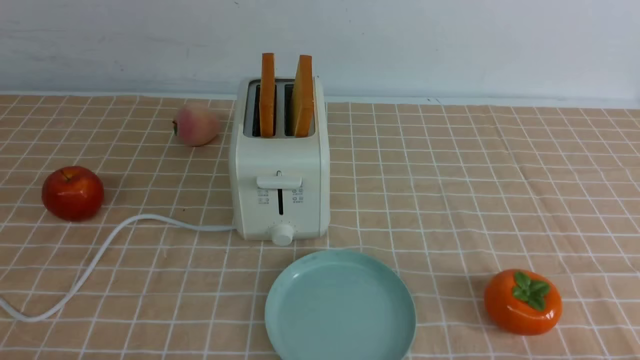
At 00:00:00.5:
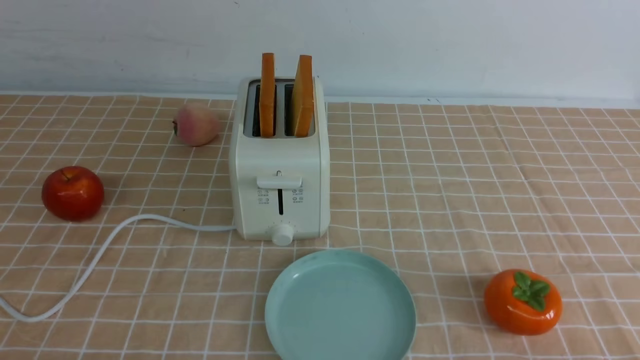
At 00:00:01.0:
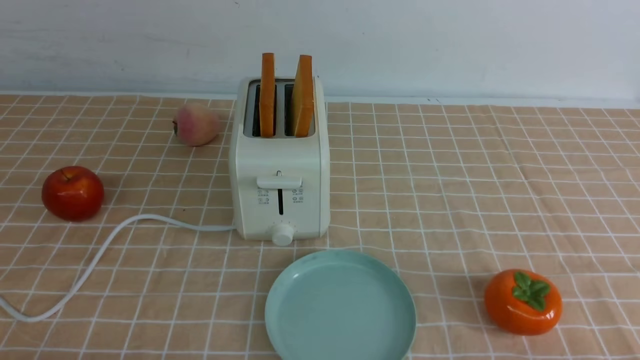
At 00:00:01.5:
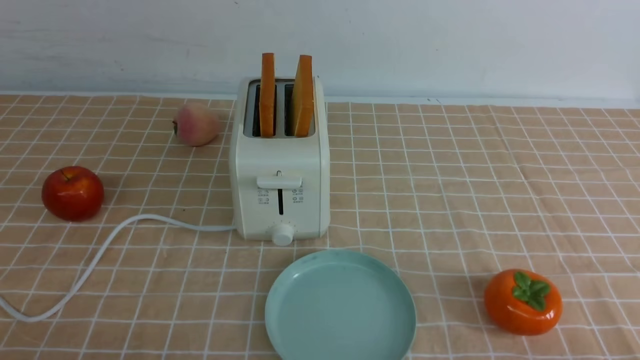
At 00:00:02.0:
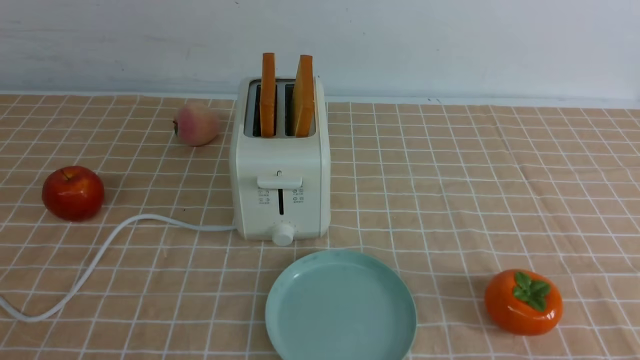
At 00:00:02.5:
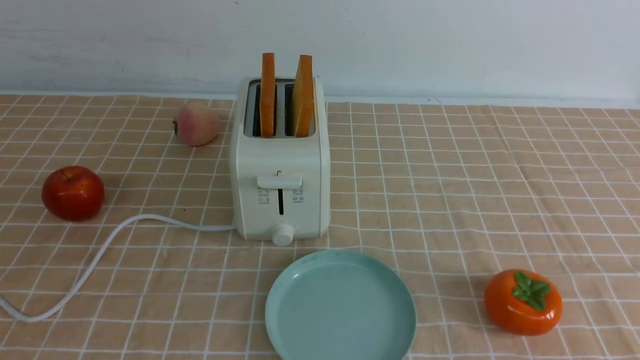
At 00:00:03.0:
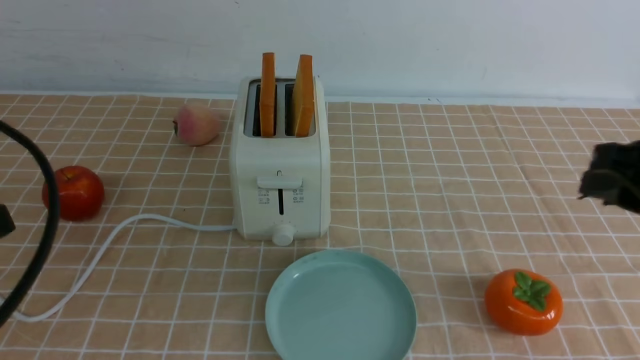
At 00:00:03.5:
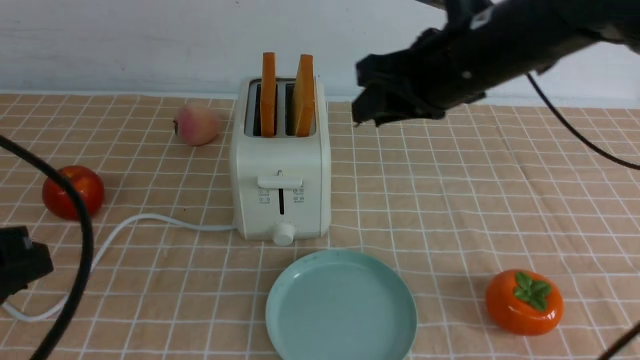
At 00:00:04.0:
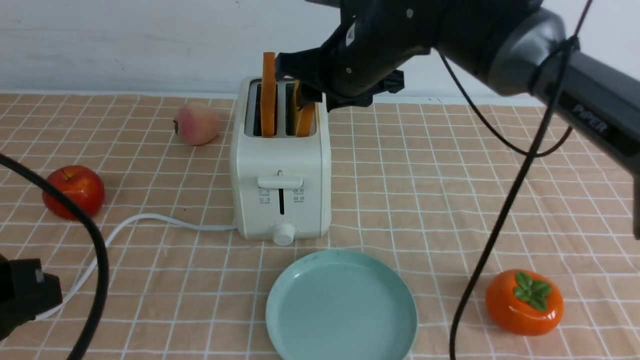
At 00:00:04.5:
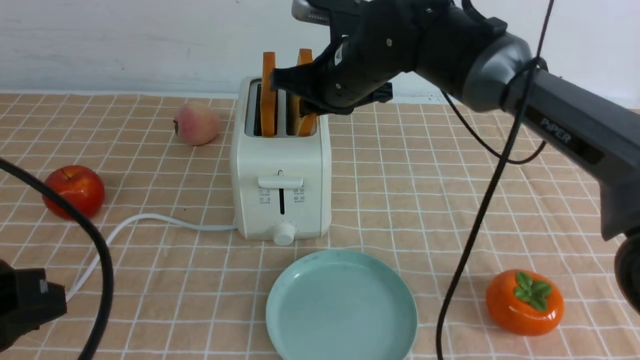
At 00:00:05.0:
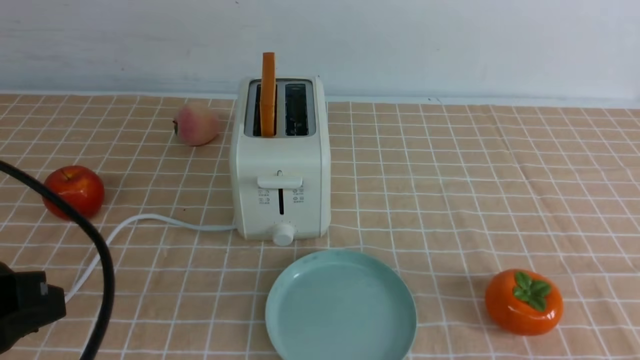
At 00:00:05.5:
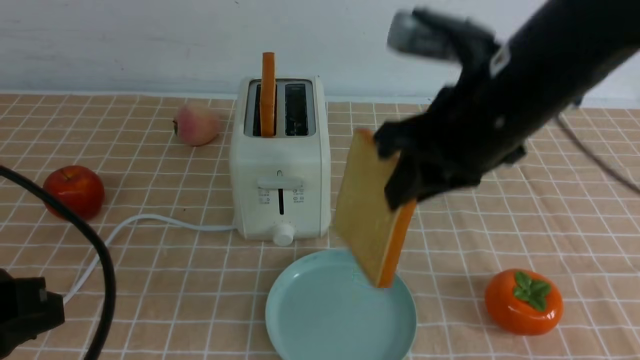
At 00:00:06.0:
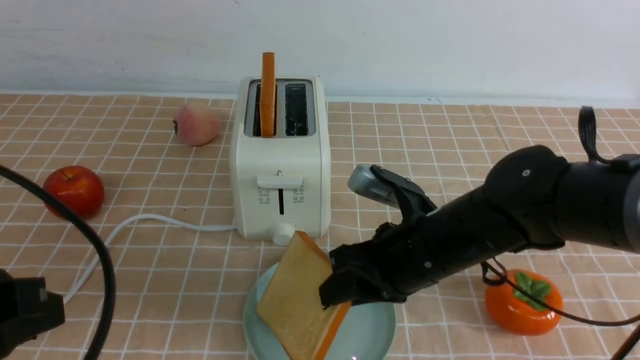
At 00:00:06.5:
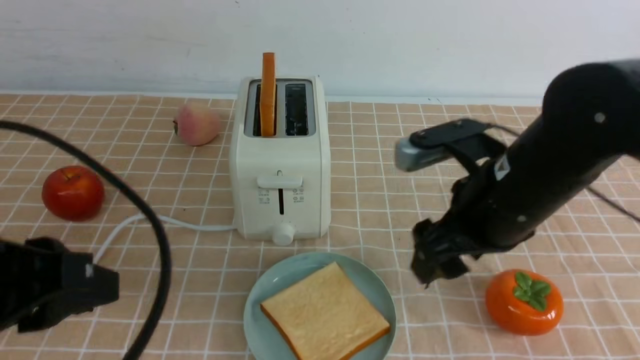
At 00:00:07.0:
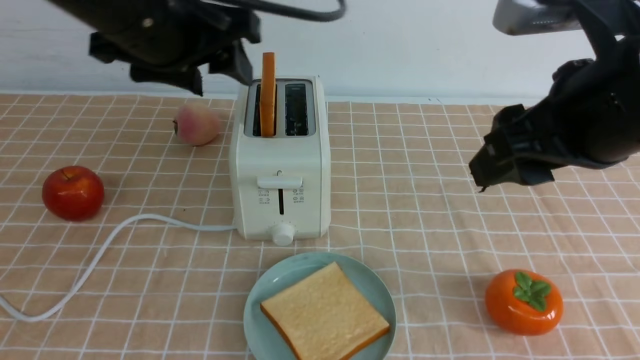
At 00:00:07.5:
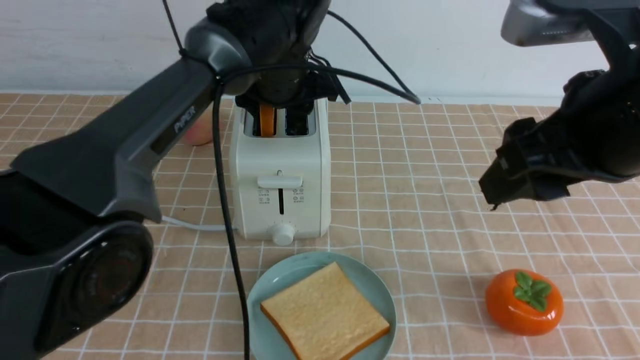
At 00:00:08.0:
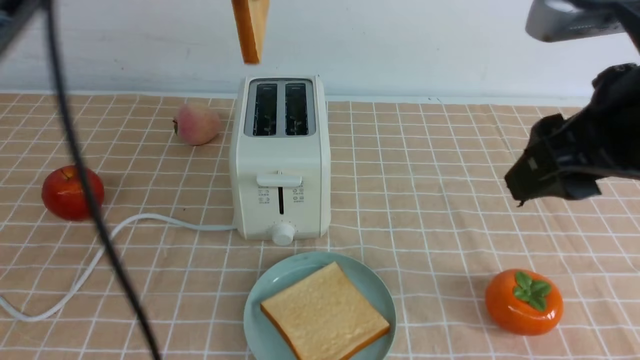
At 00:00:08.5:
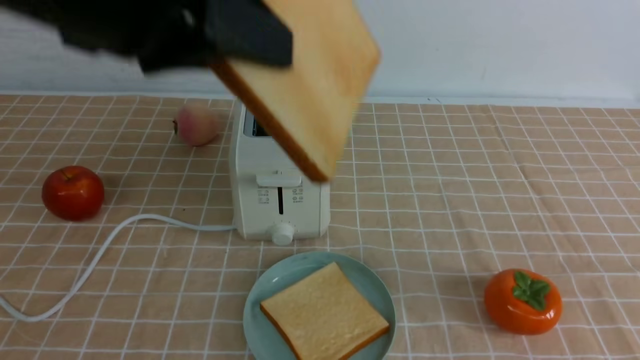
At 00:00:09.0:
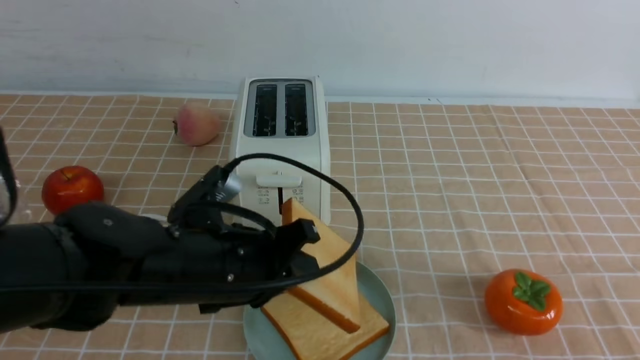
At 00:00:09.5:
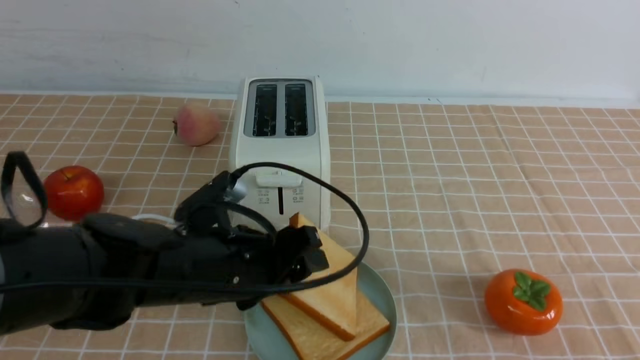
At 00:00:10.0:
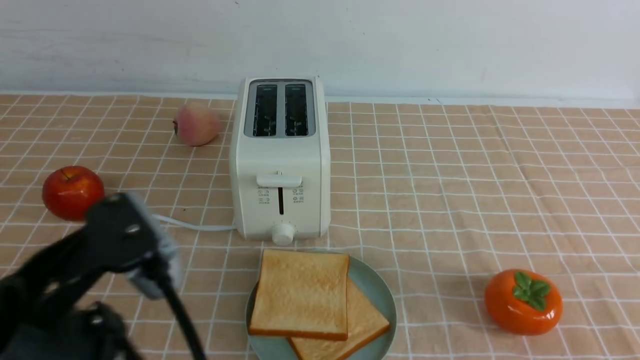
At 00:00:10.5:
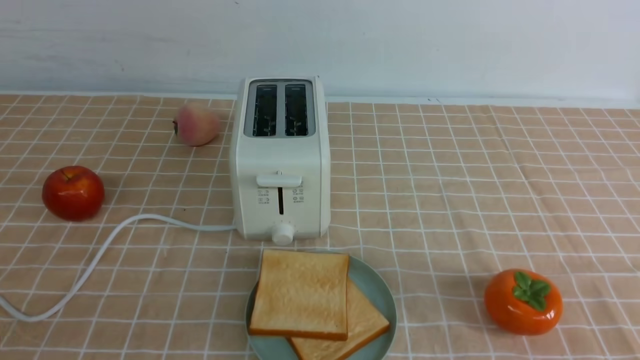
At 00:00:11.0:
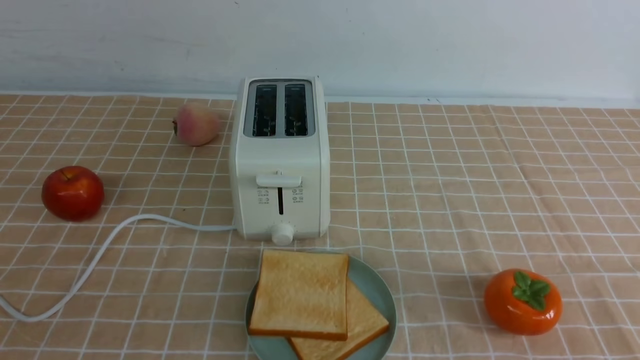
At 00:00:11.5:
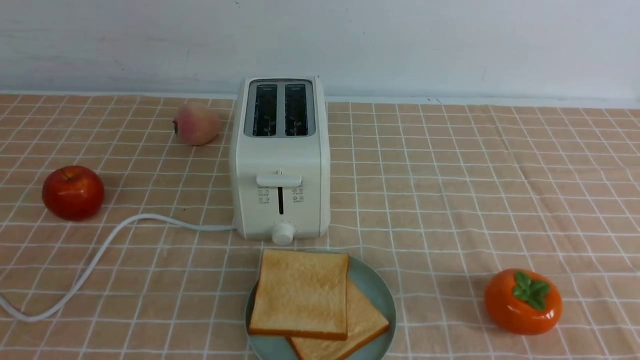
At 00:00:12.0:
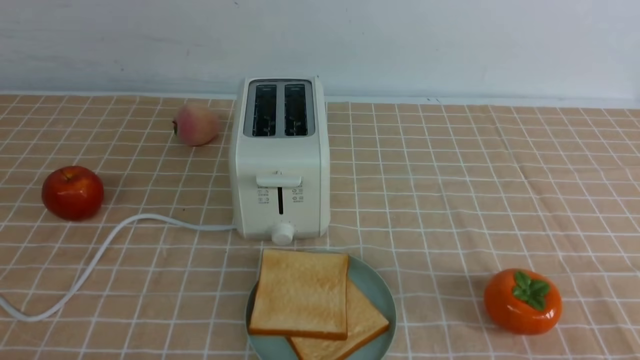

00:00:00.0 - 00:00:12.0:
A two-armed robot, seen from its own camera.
Task of the whole recording: take toasted bread from bread machine on light coffee tablecloth place on plate.
Step, 00:00:00.0 - 00:00:04.5: use the right arm to take out a slice of bread.
Step, 00:00:05.0 - 00:00:06.0: use the right arm to put a slice of bread into the plate.
Step, 00:00:06.5 - 00:00:07.5: use the left arm to take out a slice of bread.
Step, 00:00:08.0 - 00:00:09.5: use the left arm to put a slice of bread into the empty plate.
00:00:02.0 - 00:00:04.0: The right gripper shifts about 50 cm forward and to the left. The left gripper heads forward, covering about 10 cm.
00:00:04.0 - 00:00:06.0: The right gripper is displaced backward, downward and to the right by about 20 cm, and closes and opens again.
00:00:06.0 - 00:00:08.0: The left gripper goes about 30 cm forward, upward and to the right, and opens and closes again, while the right gripper heads upward, to the right and backward, covering some 25 cm.
00:00:08.0 - 00:00:10.0: The left gripper moves backward and downward, approximately 30 cm; the right gripper travels downward, backward and to the right by approximately 20 cm, and closes.
00:00:10.0 - 00:00:12.0: The left gripper heads downward, to the left and backward, covering about 20 cm, and closes up.

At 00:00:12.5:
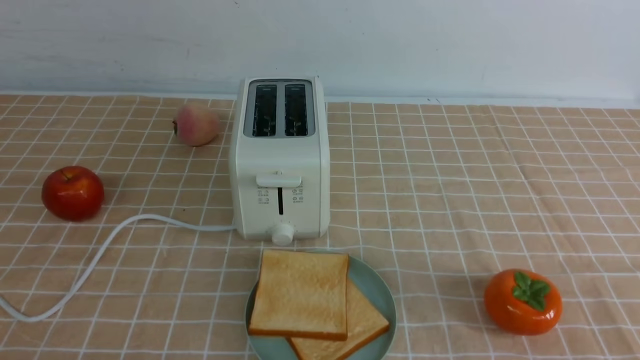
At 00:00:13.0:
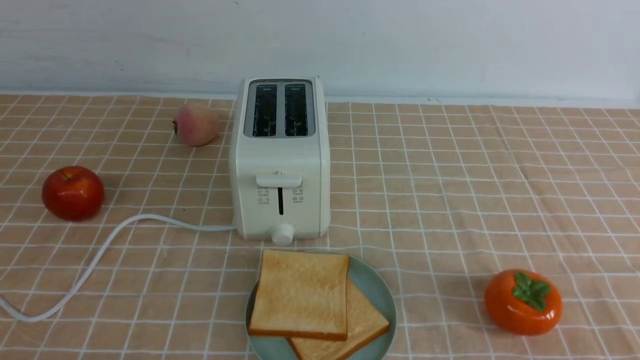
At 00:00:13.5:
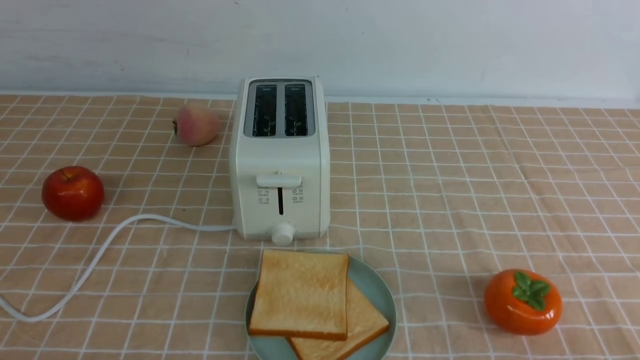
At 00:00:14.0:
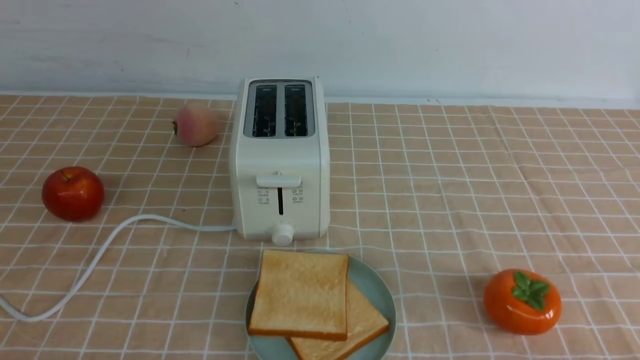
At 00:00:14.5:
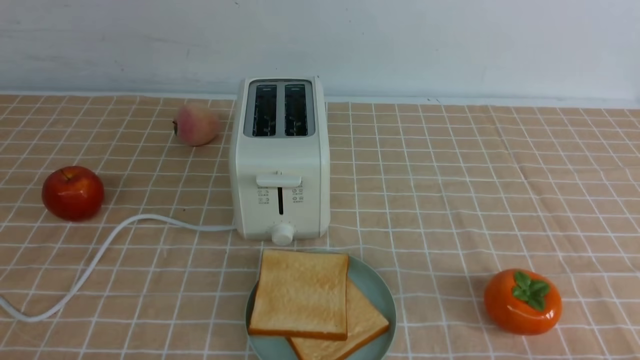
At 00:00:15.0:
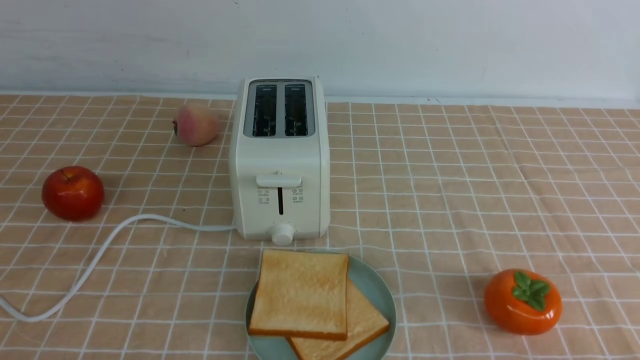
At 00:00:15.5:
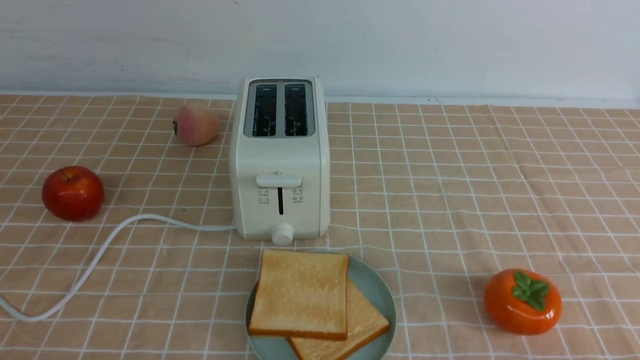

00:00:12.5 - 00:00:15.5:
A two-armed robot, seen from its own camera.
Task of the whole recording: take toasted bread from bread machine on light coffee tablecloth place on plate.
00:00:14.0 - 00:00:15.5: The two grippers keep their place.

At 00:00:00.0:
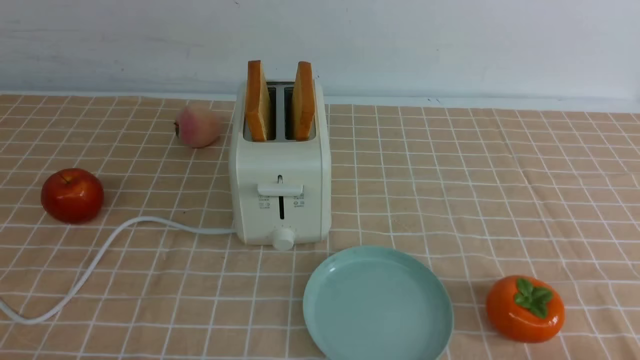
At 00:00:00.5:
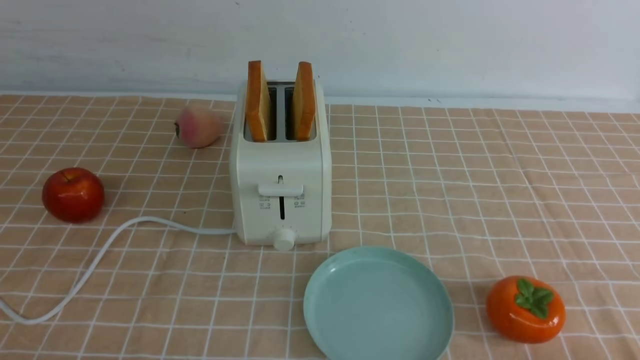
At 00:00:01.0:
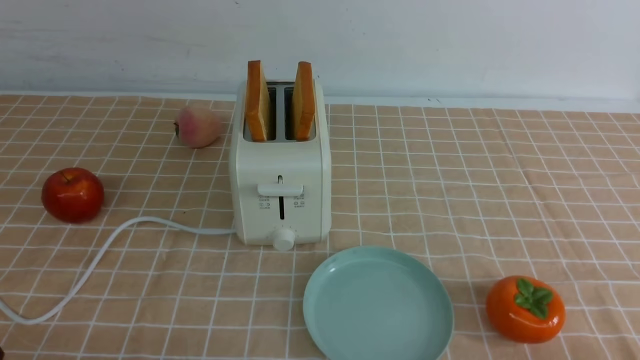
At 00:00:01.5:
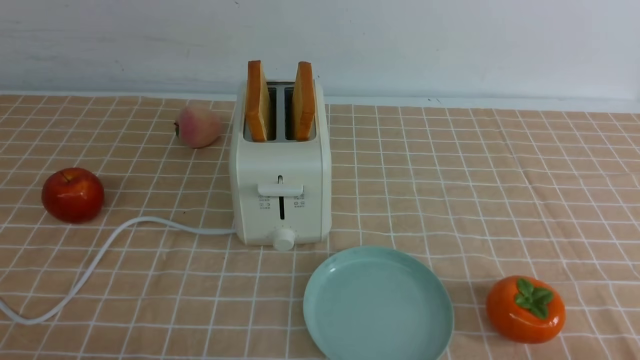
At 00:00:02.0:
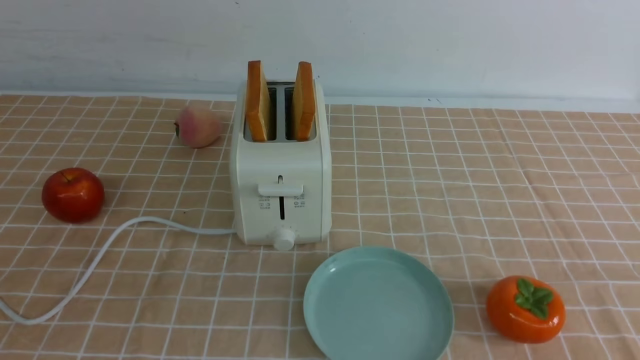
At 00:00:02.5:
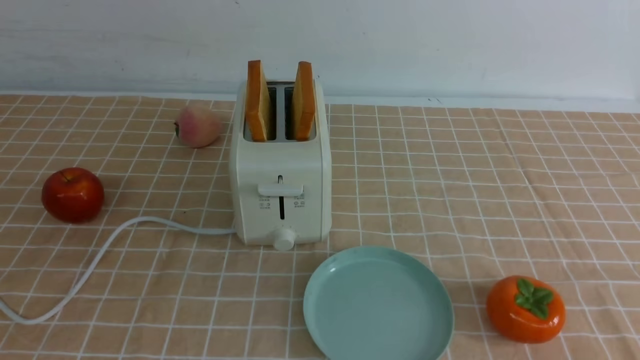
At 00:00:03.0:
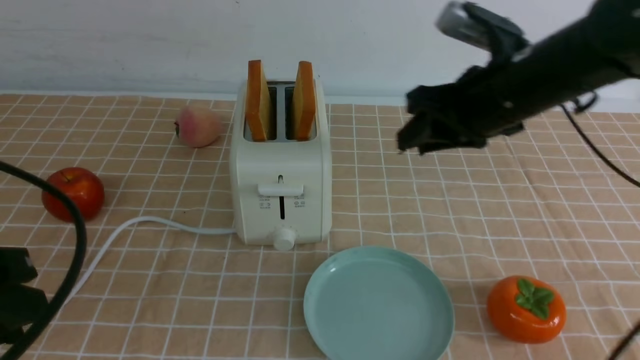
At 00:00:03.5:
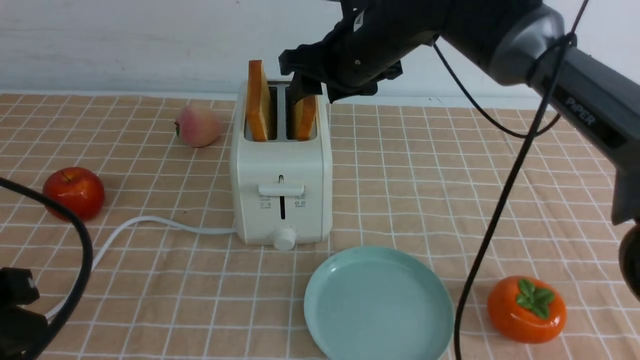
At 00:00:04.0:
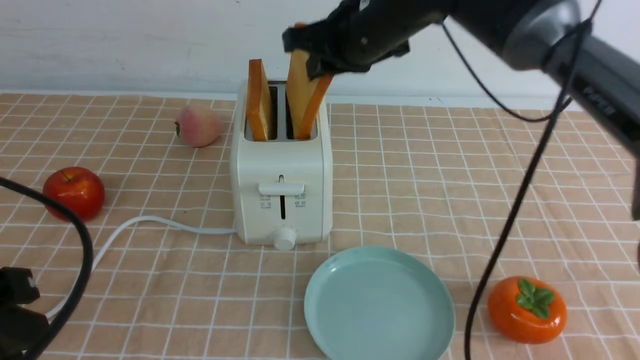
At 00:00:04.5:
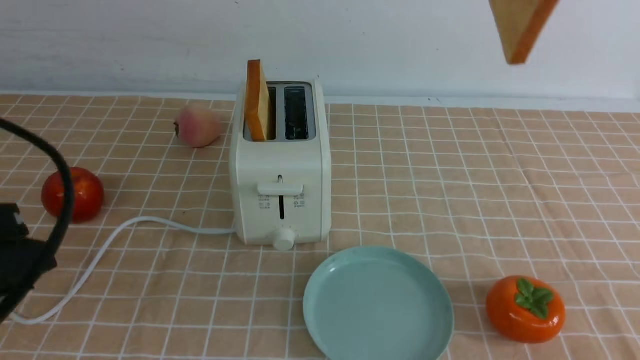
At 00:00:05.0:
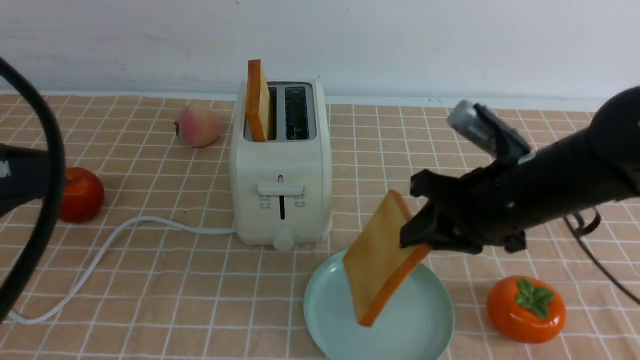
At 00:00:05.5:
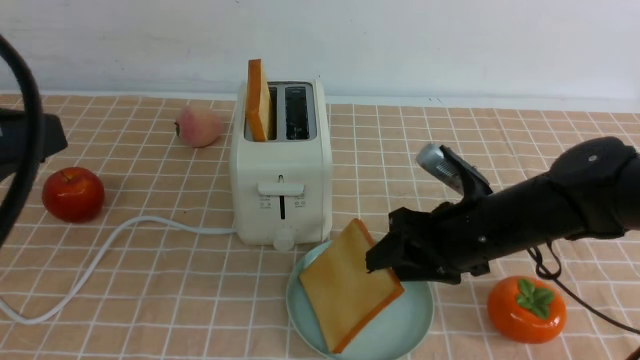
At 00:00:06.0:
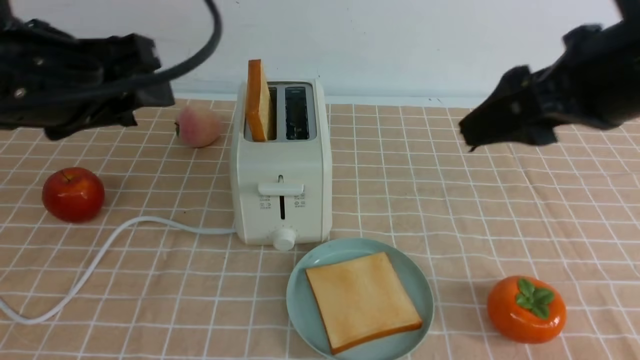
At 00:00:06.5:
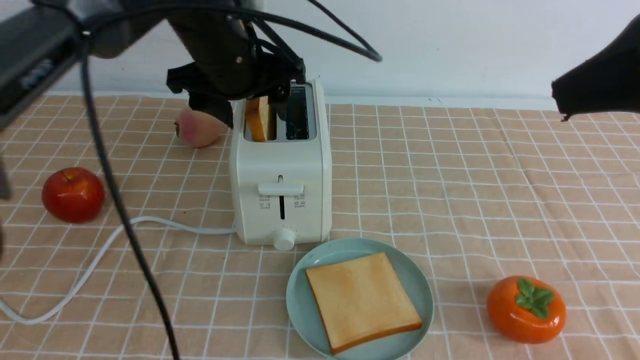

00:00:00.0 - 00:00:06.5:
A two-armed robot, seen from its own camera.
Task of the whole recording: take toasted bread from bread machine on light coffee tablecloth place on plate.
Step, 00:00:00.0 - 00:00:03.5: use the right arm to take out a slice of bread.
Step, 00:00:04.5 - 00:00:05.5: use the right arm to put a slice of bread into the plate.
00:00:02.0 - 00:00:04.5: The left gripper heads forward, covering approximately 10 cm; the right gripper moves forward, upward and to the left, about 35 cm.
00:00:04.5 - 00:00:06.5: The left gripper is displaced forward and to the right by approximately 30 cm, and opens its fingers; the right gripper is displaced backward by approximately 15 cm, goes downward and returns, approximately 25 cm each way, and opens up.
